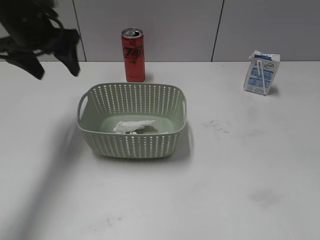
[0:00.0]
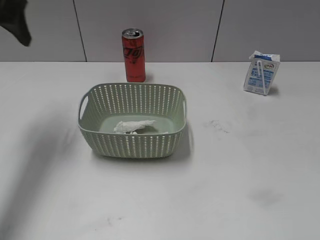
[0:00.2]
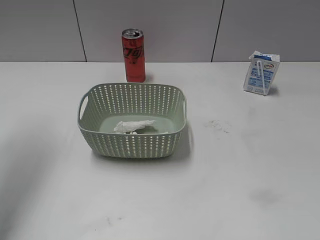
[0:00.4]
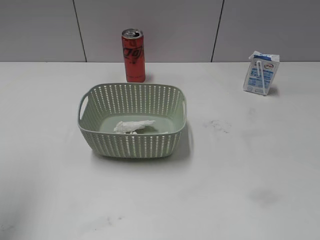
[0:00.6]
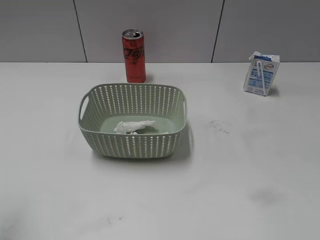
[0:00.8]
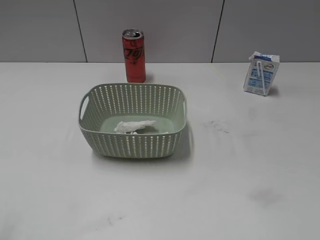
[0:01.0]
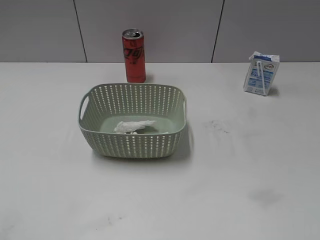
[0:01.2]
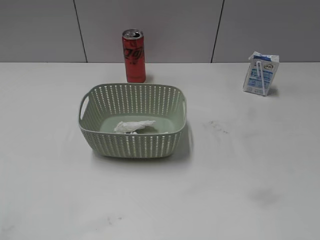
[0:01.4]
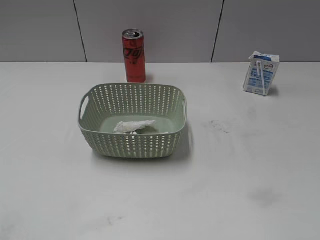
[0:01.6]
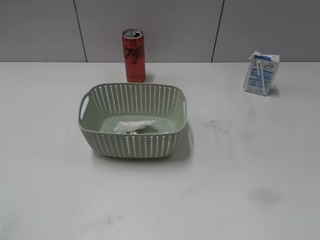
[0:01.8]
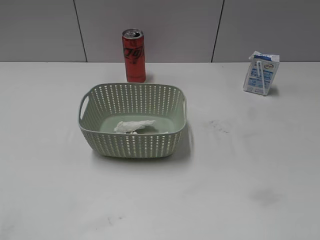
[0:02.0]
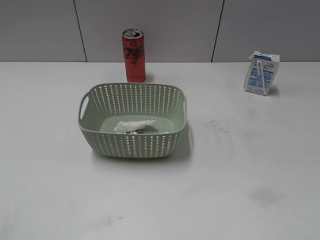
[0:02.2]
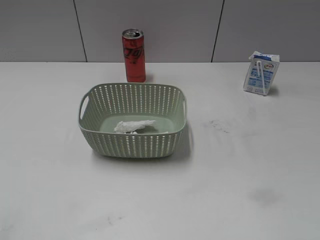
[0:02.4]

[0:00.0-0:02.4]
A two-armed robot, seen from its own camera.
0:00.0 to 0:01.2: The left gripper is displaced backward by some 35 cm.
